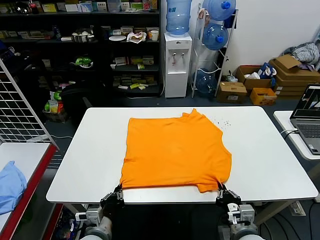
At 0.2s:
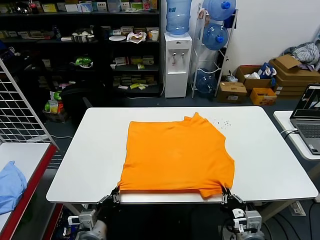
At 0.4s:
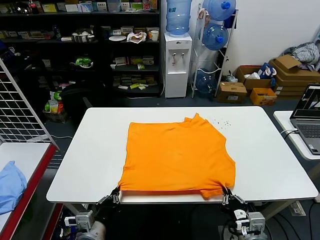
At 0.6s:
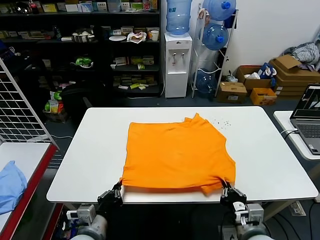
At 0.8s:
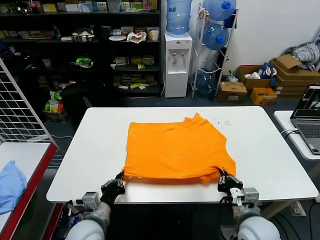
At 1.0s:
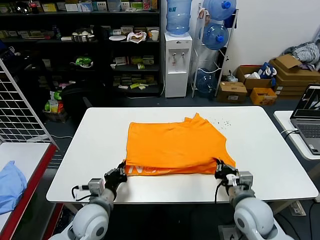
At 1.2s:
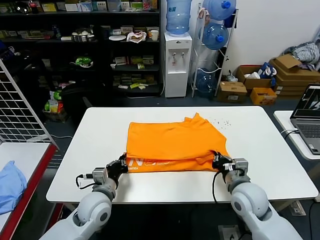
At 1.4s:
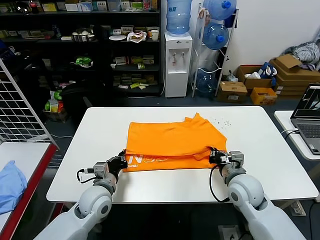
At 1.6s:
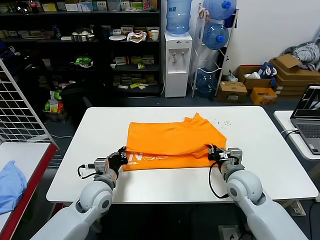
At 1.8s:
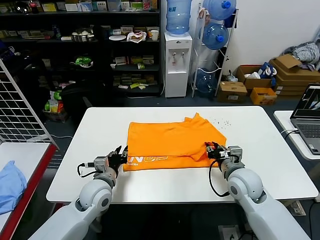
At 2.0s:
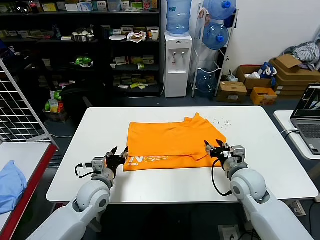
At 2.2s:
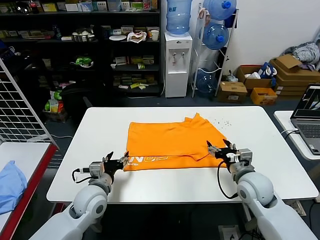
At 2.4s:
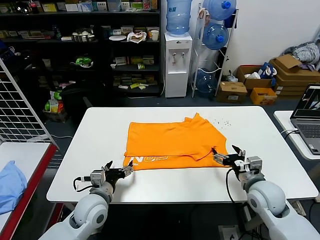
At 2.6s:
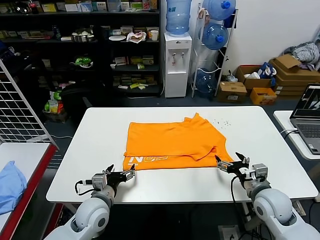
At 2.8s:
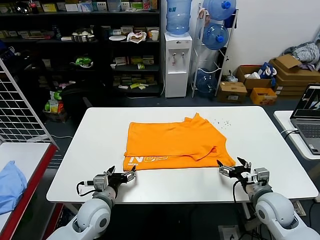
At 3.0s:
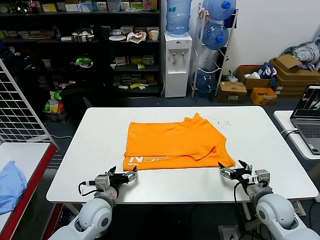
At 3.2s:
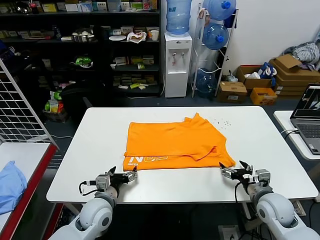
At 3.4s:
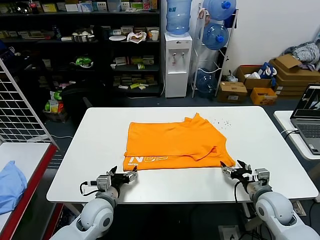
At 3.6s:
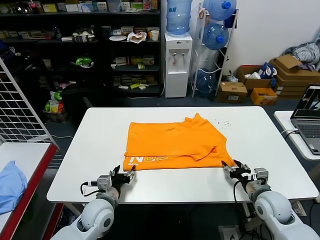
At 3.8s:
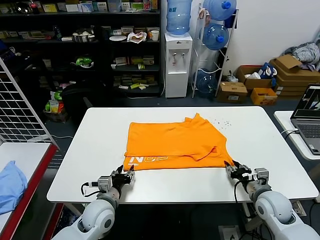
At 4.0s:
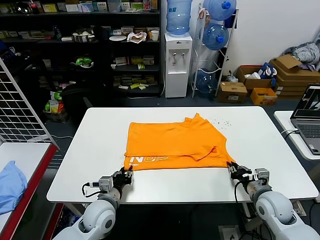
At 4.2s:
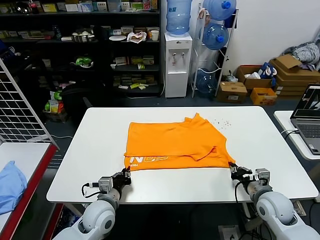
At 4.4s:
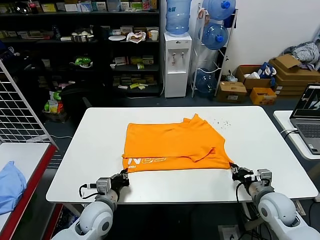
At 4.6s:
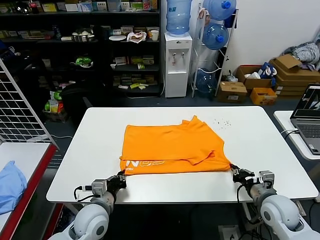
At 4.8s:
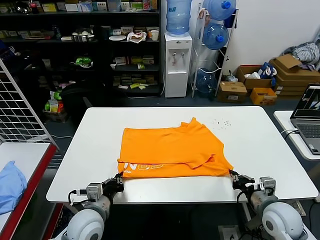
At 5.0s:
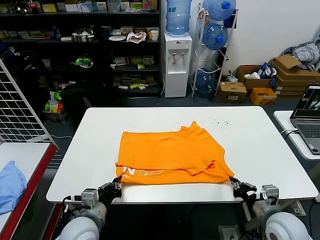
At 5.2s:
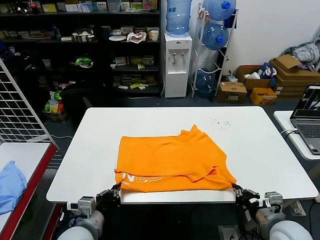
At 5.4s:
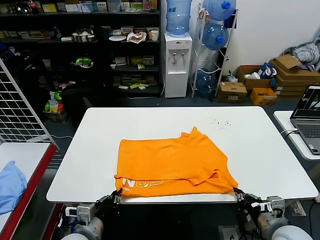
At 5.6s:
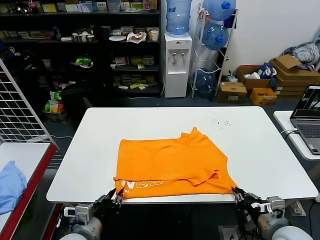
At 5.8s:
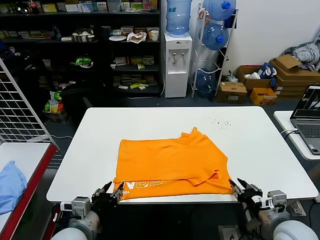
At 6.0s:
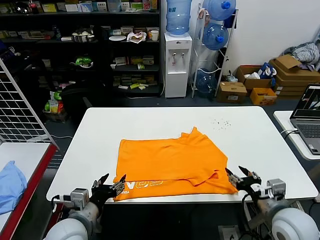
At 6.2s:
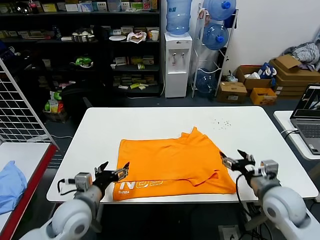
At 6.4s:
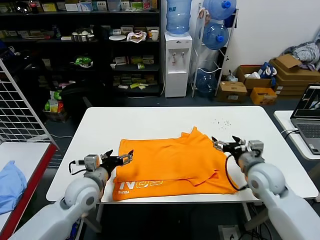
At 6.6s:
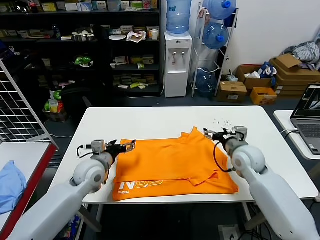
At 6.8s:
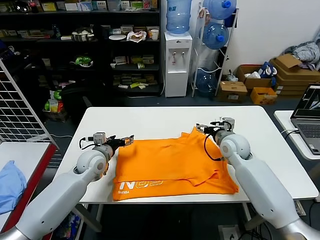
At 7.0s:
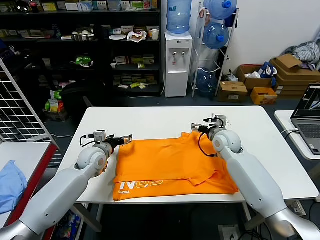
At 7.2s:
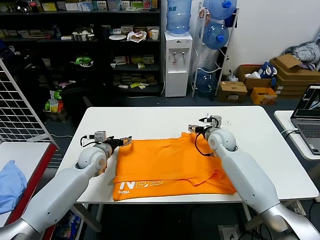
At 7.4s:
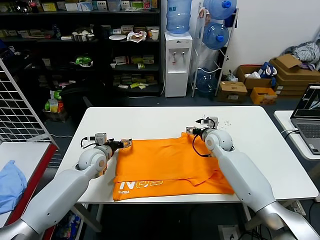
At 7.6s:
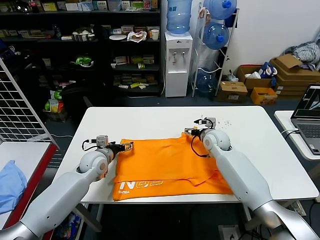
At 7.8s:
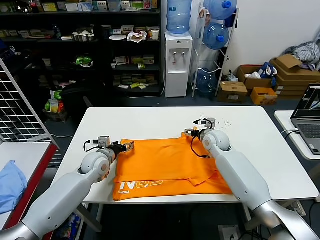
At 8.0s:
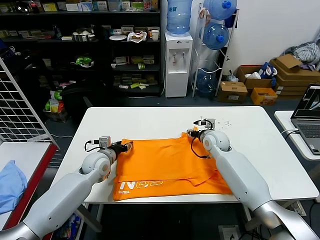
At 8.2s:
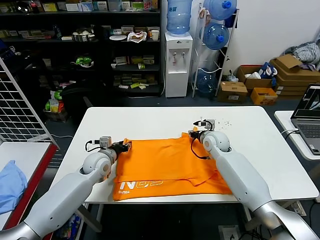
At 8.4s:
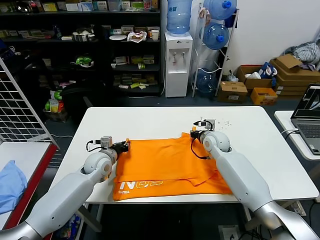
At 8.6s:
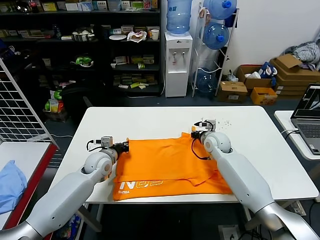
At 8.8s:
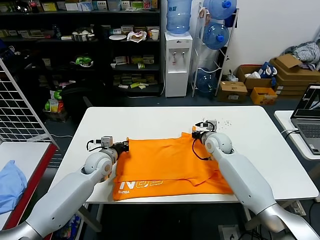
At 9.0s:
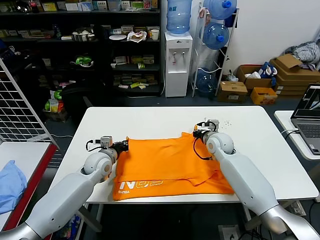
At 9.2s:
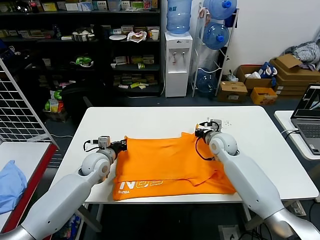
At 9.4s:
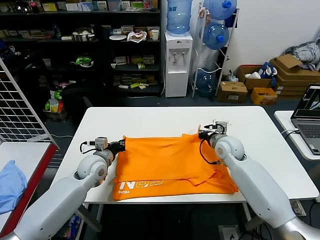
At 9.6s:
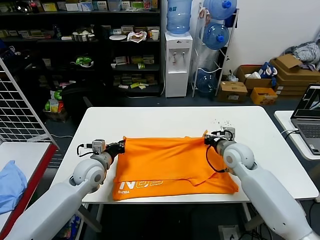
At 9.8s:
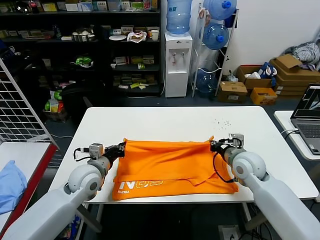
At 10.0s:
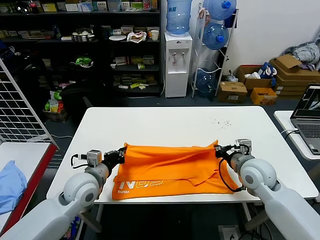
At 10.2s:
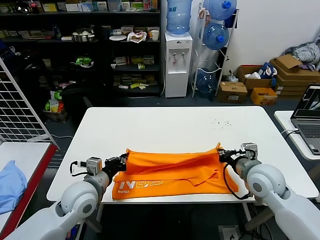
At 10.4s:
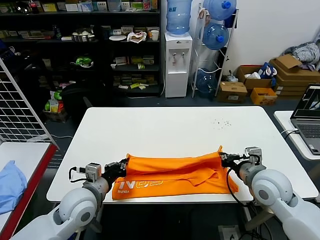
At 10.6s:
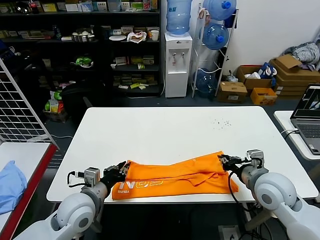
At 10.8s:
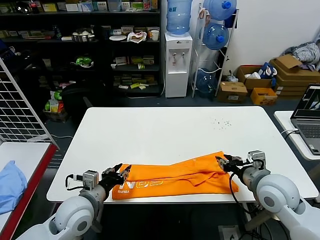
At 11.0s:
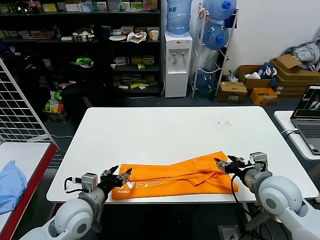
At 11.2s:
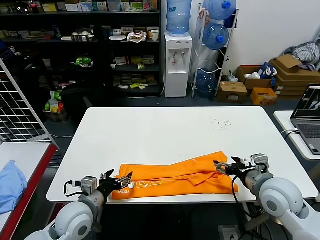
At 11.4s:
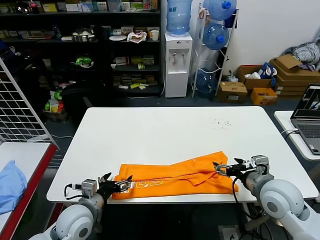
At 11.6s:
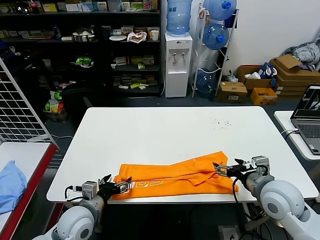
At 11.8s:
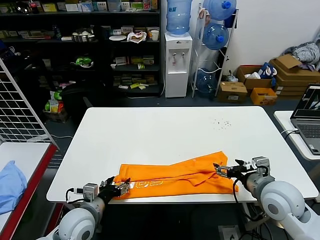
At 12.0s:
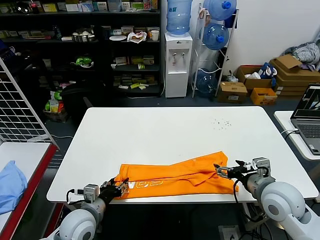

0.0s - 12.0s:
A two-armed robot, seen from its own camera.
Task of the whole recording: fold and organize the clothes.
Step, 0.0s - 1.6s: use both grippers to drag the lower edge of the fabric forward and fold it over the upper edge.
Step, 1.8s - 5.6s: Drag the clothes downward with both gripper.
Step, 5.8s - 8.4s: use both grippers simultaneously to clamp the upper edge of the clothing fabric.
Step, 8.6s - 10.4s: use both grippers to drag the upper edge of the fabric backward and fold it over the lower edge.
0.0s - 1.6s: Both grippers travel together forward, about 15 cm.
1.6s - 3.0s: The left gripper opens up. Meanwhile the right gripper goes roughly 10 cm to the right and backward, and opens its fingers.
3.0s - 4.4s: The left gripper closes; the right gripper closes.
4.4s - 6.0s: The two grippers go some 10 cm upward and backward. The right gripper opens. The left gripper opens.
6.0s - 7.6s: Both grippers travel together forward, some 30 cm.
7.6s - 9.0s: The right gripper closes up. The left gripper closes up.
9.0s - 10.4s: The grippers both shift backward and upward by approximately 20 cm.
10.4s - 12.0s: The left gripper moves downward, about 5 cm, and opens. Meanwhile the right gripper opens its fingers.

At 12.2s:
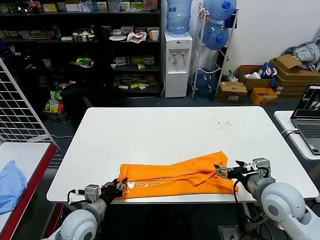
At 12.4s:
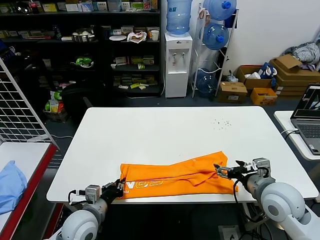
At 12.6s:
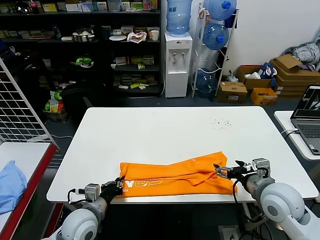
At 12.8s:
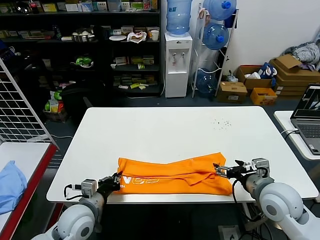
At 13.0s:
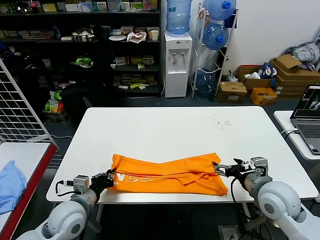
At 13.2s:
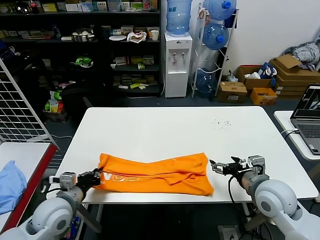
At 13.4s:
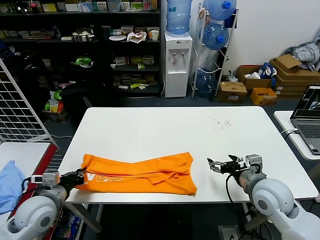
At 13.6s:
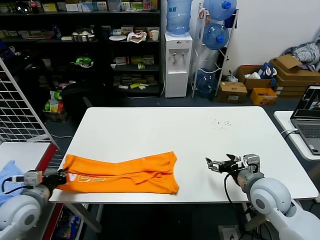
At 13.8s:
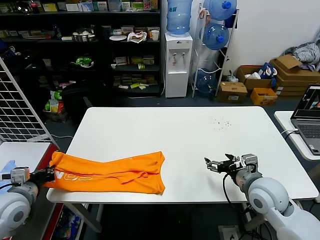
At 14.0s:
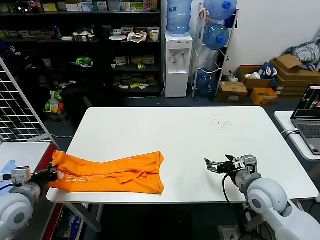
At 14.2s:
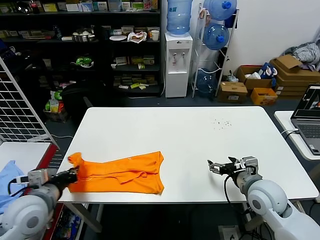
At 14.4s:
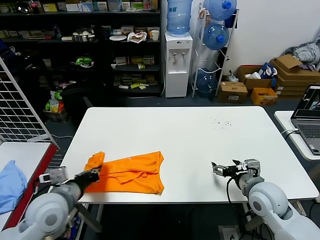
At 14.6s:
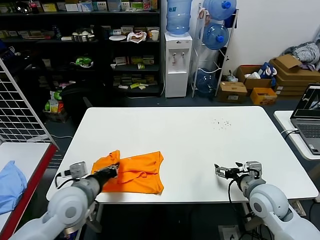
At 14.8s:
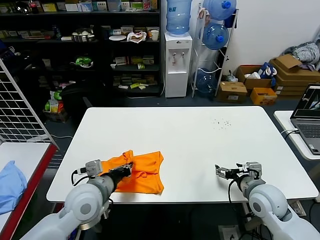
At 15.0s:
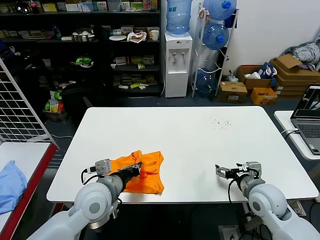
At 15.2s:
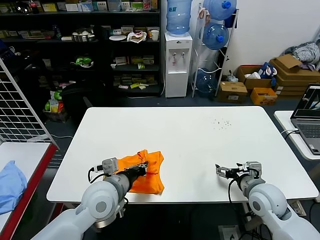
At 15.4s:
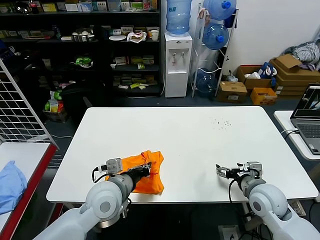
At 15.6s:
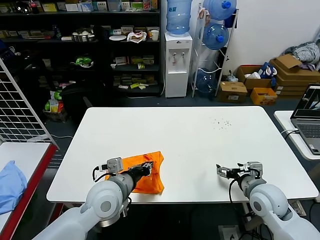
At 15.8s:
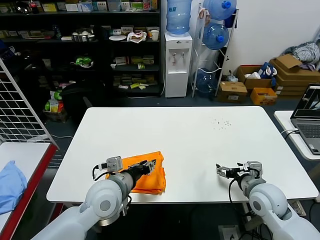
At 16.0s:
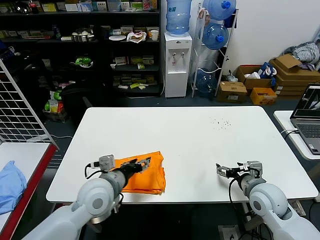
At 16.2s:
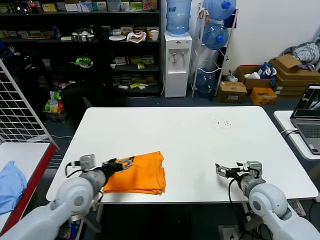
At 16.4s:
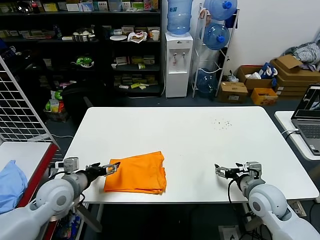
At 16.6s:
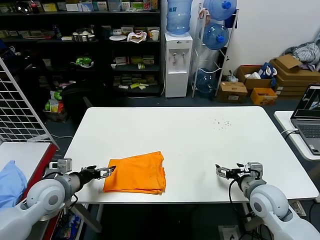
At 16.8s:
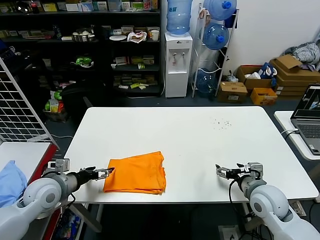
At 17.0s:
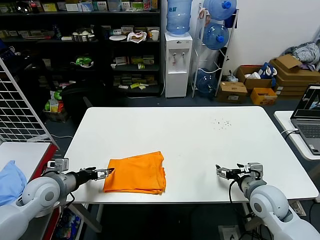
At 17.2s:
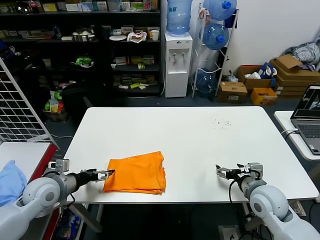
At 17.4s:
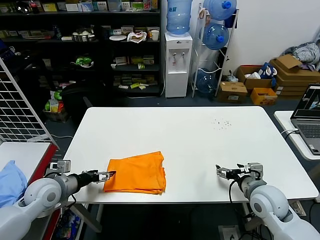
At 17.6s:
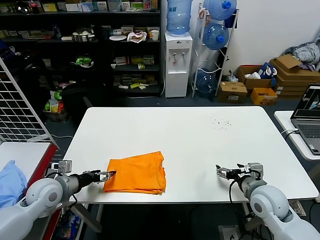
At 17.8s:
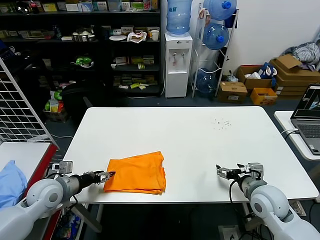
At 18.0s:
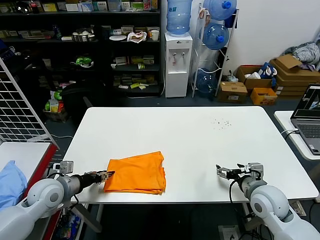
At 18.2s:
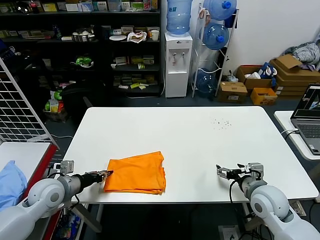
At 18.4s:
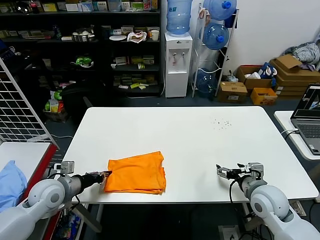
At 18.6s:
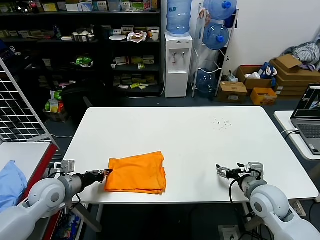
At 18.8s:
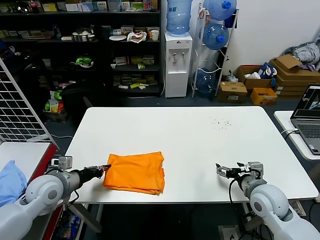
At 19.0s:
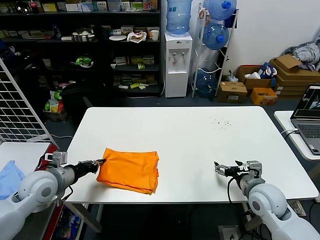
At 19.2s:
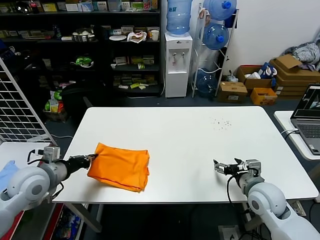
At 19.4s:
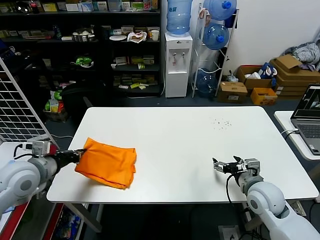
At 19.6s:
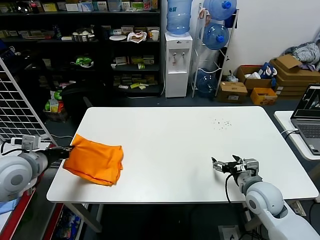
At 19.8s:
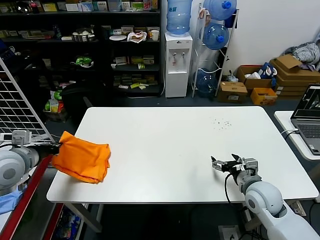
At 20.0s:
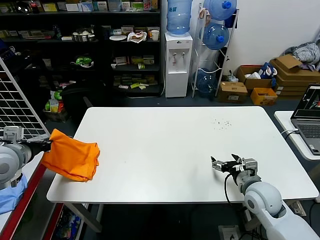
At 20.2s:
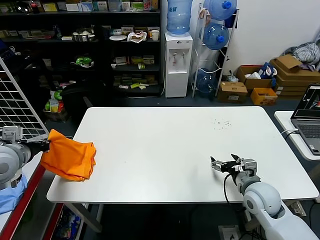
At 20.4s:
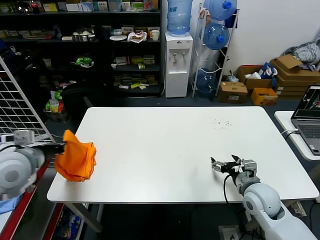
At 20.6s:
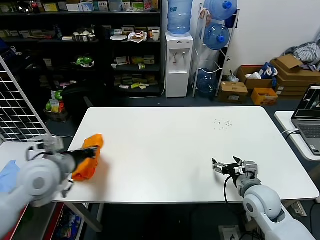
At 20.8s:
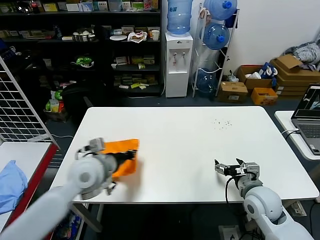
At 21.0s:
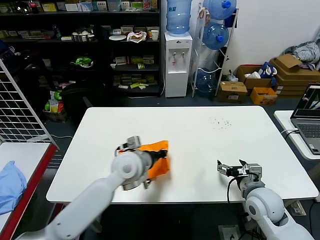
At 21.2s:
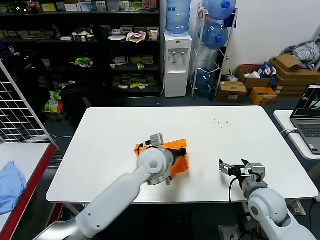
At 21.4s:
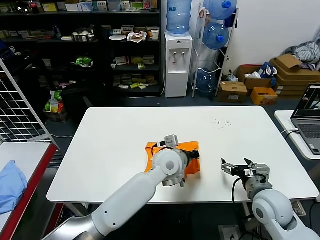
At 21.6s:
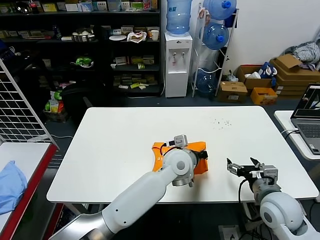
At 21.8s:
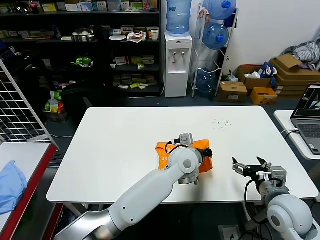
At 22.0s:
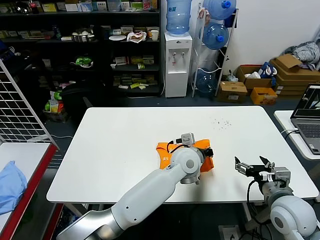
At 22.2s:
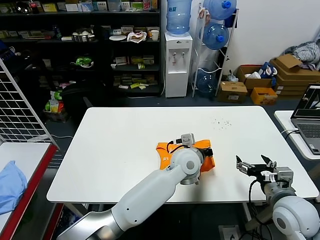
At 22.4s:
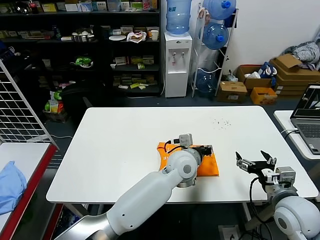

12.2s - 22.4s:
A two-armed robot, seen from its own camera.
Task of the whole recording: fold and organize the clothes.
Step, 12.6s - 15.6s: use the left gripper to drag the left edge of the fabric to the left and folds it over the right edge.
Step, 15.8s - 22.2s: Flip the folded clothes over with left gripper.
12.2s - 13.6s: The left gripper travels to the left and upward by approximately 15 cm, and closes up.
13.6s - 15.2s: The left gripper heads to the right, covering about 20 cm.
15.2s - 16.6s: The left gripper is displaced to the left by some 15 cm, and opens its fingers.
16.6s - 18.0s: The left gripper closes.
18.0s - 19.4s: The left gripper travels upward by about 10 cm, and closes up.
19.4s - 21.0s: The left gripper shifts some 25 cm to the right.
21.0s - 22.4s: The right gripper heads upward and backward, covering approximately 10 cm. Meanwhile the left gripper shifts some 20 cm to the right.
